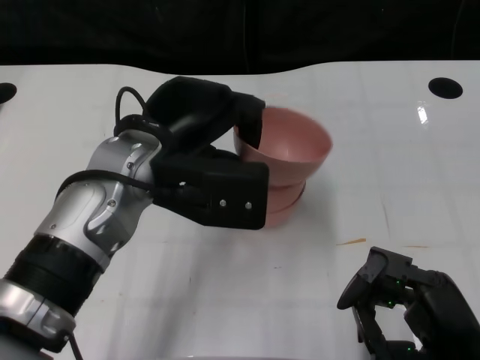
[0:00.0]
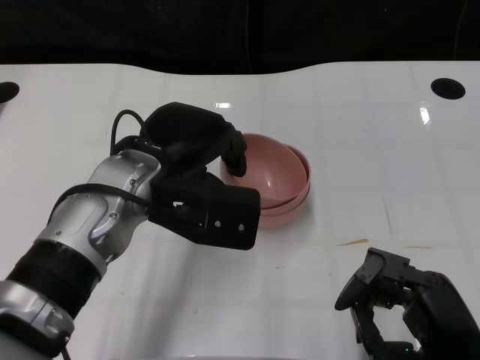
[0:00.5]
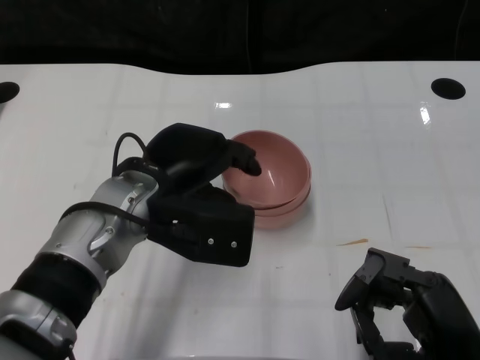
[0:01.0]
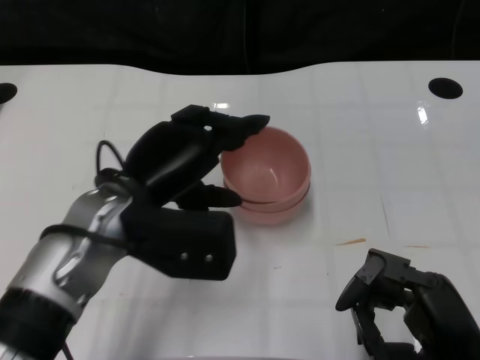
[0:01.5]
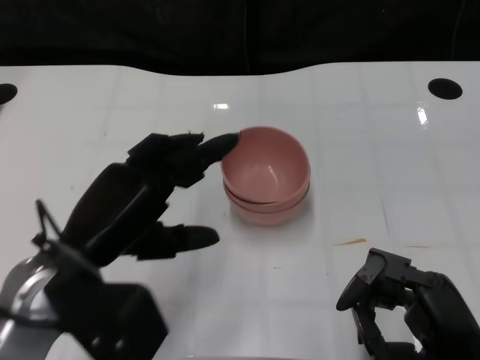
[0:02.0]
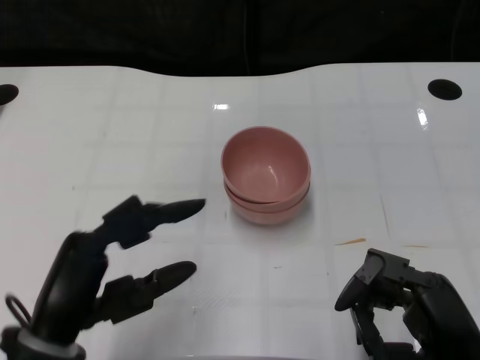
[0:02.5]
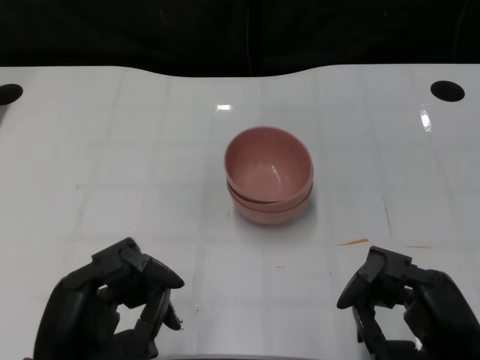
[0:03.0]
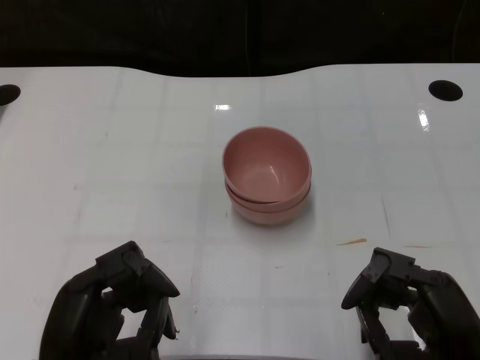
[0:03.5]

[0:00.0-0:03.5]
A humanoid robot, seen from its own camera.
Task of the whole recording: Pick up the bowl on one side of the table and place it on top of the middle bowl, then pick up the bowl on the other side of the table and place it on top of the middle bowls.
0:00.0 to 0:02.0: The left hand moves backward, to the left and downward, about 10 cm.
0:02.0 to 0:03.5: The left hand goes roughly 10 cm backward and downward.

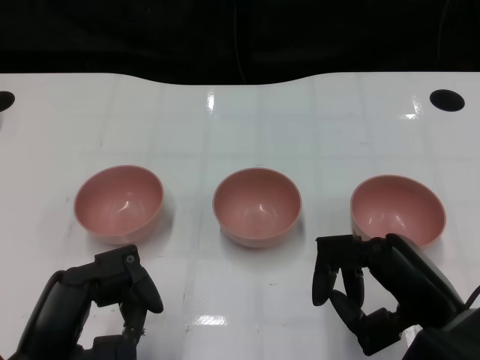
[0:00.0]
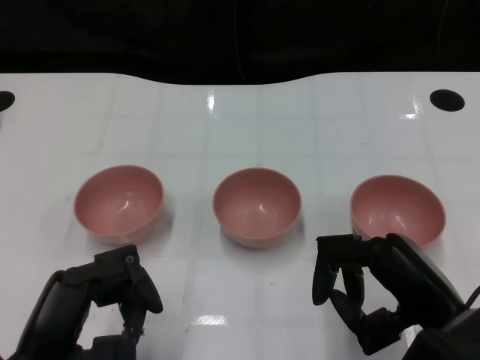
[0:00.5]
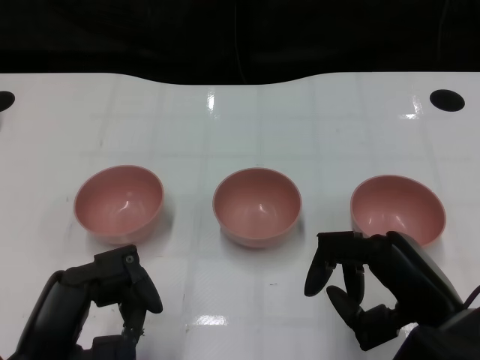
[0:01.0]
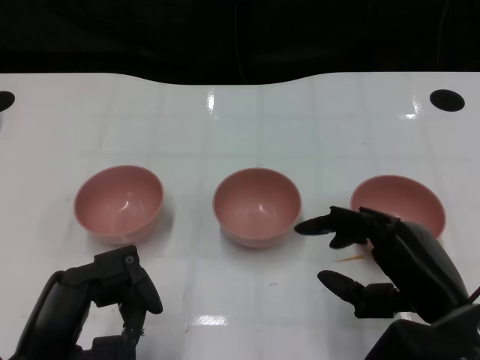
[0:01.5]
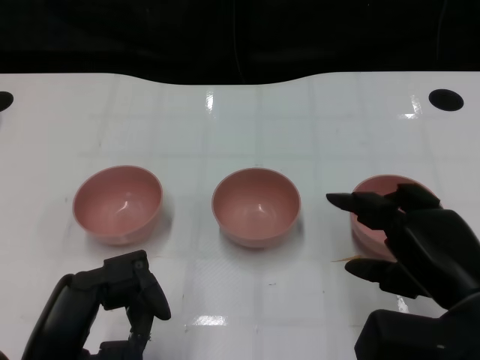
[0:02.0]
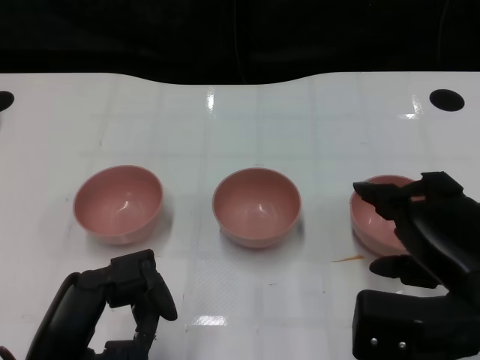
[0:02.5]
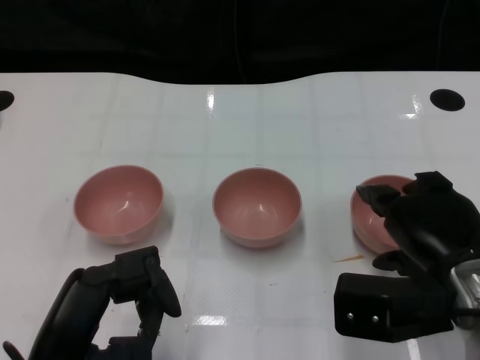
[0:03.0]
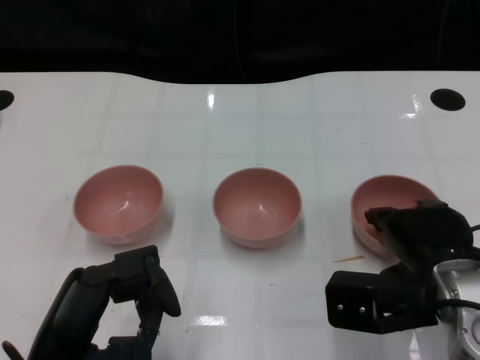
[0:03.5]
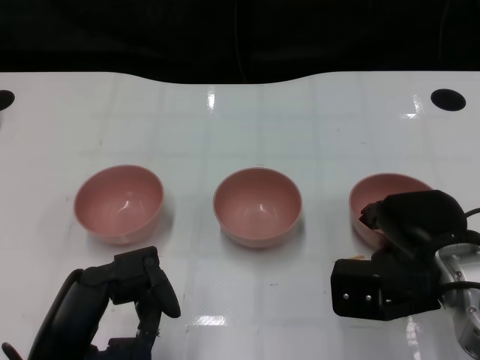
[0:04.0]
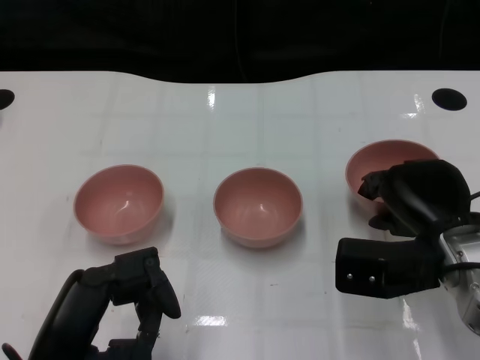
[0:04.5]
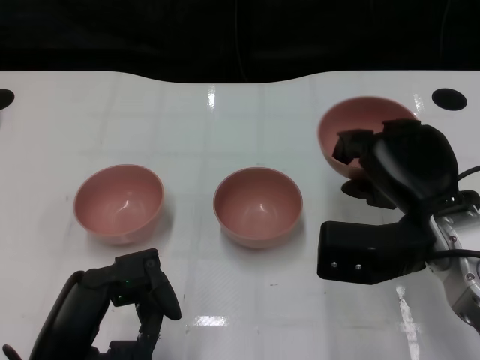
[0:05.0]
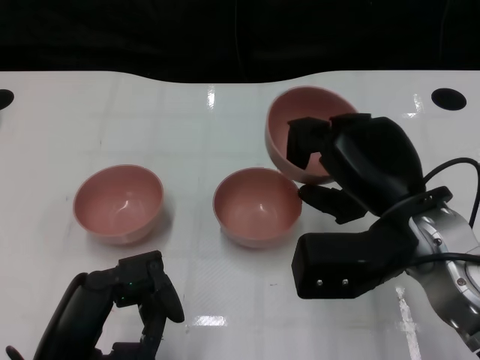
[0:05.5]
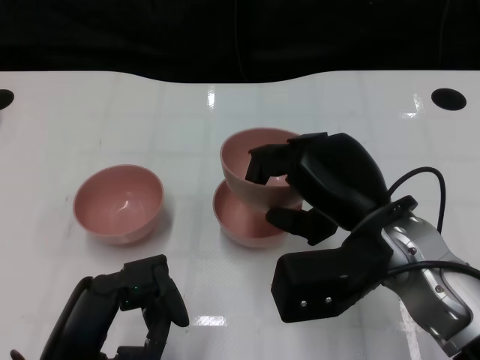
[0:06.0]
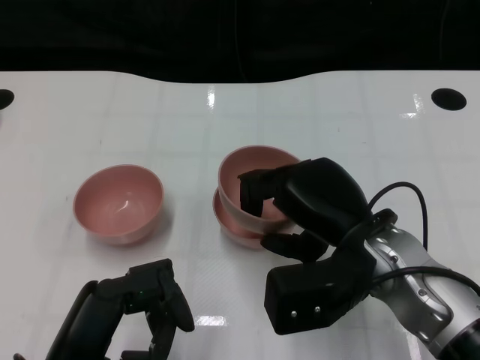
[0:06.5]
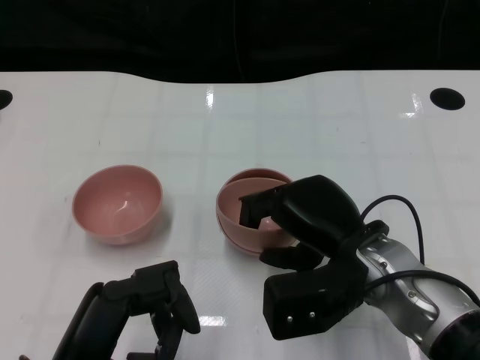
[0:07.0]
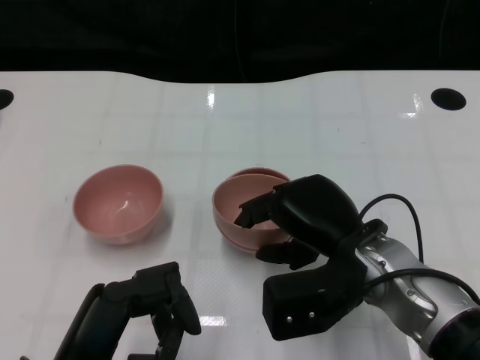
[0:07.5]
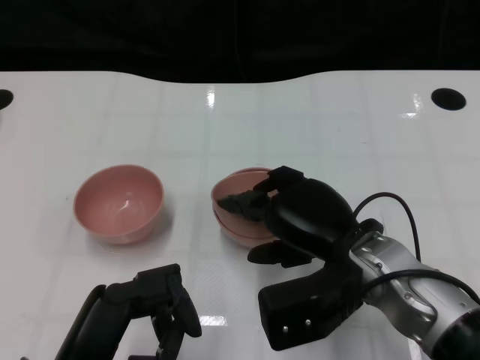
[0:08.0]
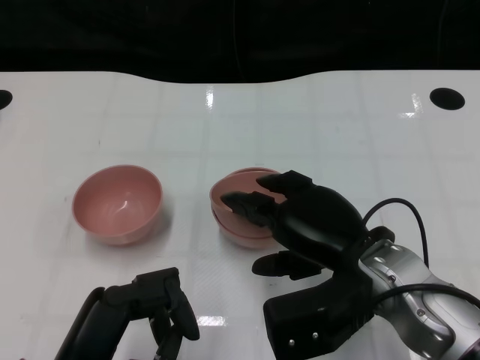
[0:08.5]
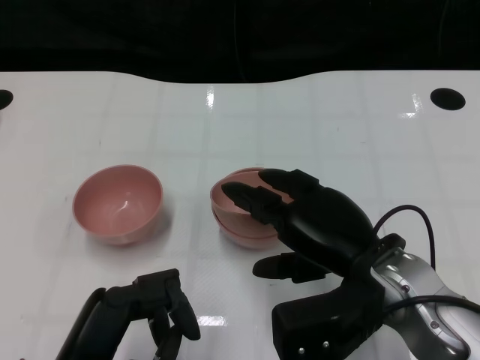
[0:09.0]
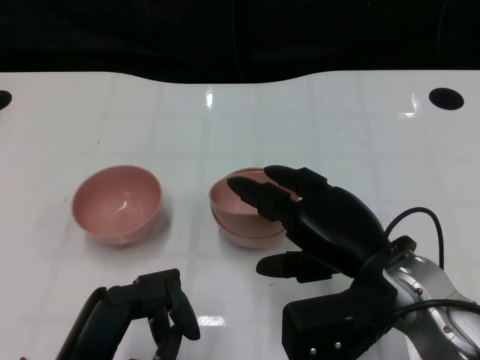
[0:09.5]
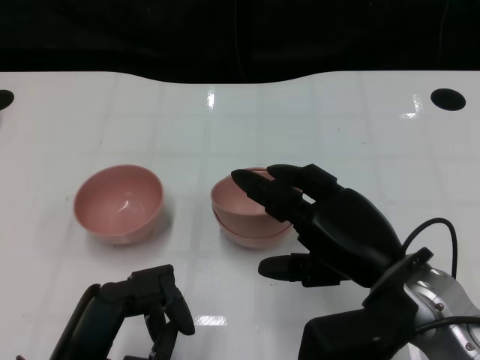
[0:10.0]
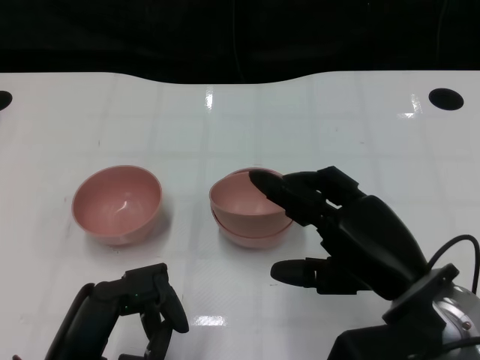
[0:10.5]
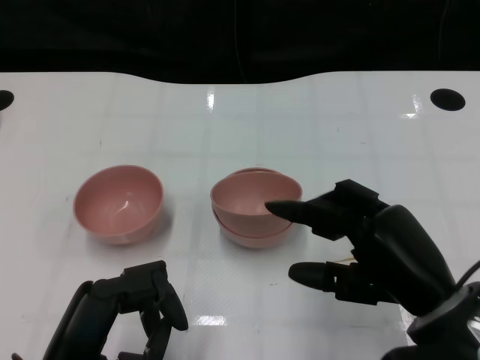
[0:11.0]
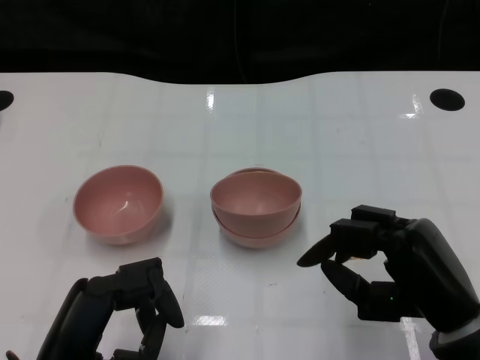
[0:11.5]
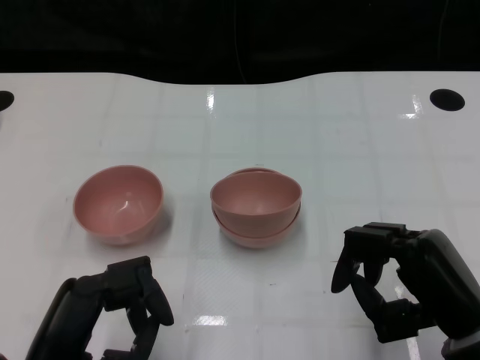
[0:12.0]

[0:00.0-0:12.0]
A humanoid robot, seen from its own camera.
Task of the whole recording: Pick up the bowl on one side of the table and place it on top of the middle bowl, then pick up the bowl on the other side of the table and place it on top of the middle bowls.
Step, 0:01.0 to 0:04.0: Grasp the bowl on the right with the right gripper.
Step, 0:04.5 to 0:10.0: Place the bowl on the right onto the bowl in the middle with right gripper.
0:02.0 to 0:04.0: The right hand shifts about 5 cm forward.
0:04.0 to 0:06.0: The right hand moves to the left and upward, approximately 10 cm.
0:08.0 to 0:10.0: The right hand shifts by approximately 5 cm.
0:10.0 to 0:12.0: The right hand travels to the right by roughly 5 cm.

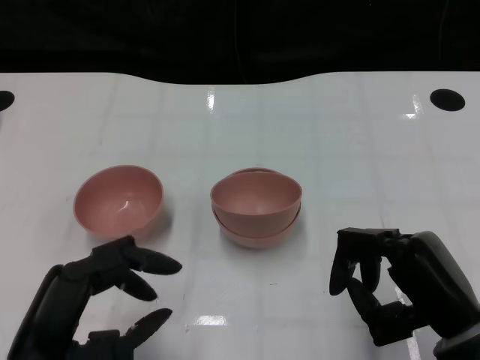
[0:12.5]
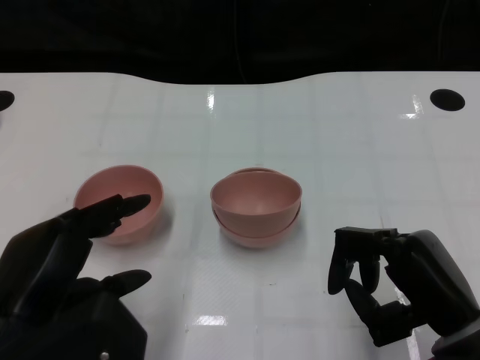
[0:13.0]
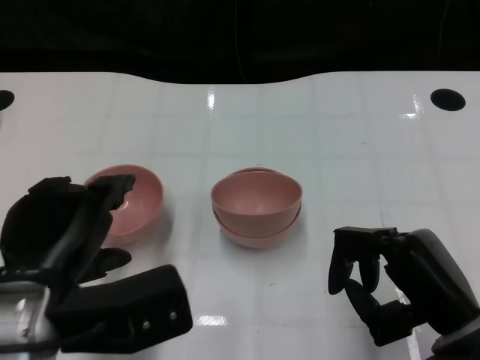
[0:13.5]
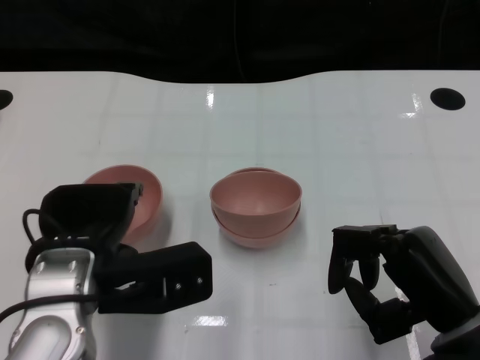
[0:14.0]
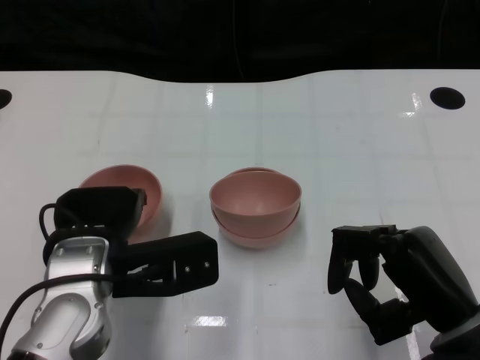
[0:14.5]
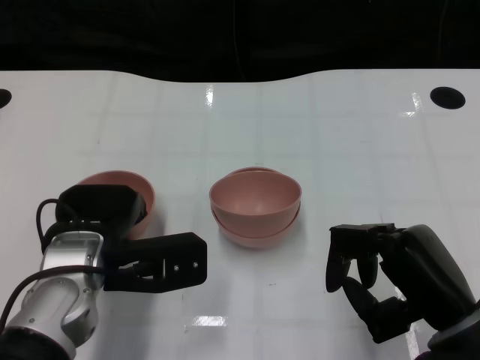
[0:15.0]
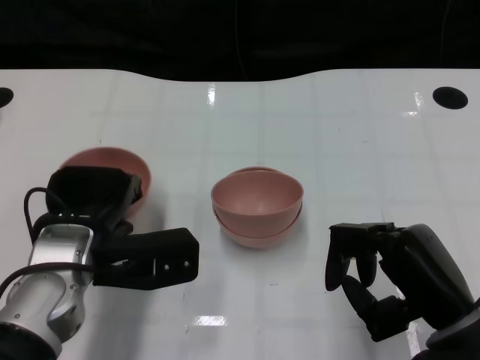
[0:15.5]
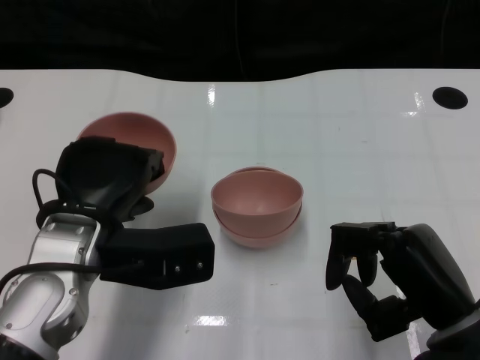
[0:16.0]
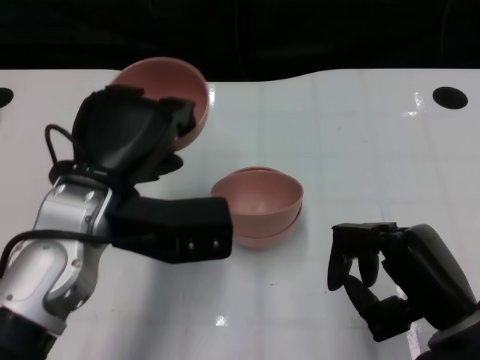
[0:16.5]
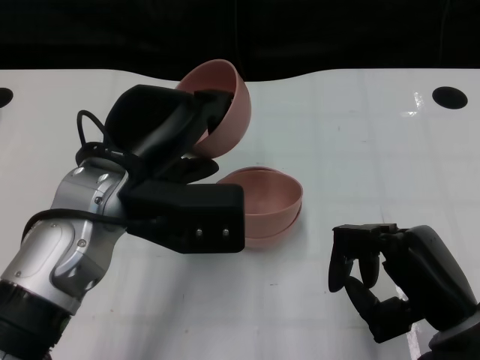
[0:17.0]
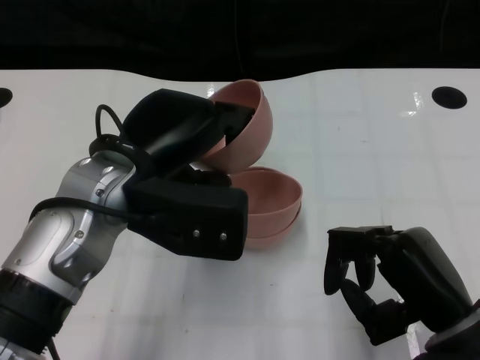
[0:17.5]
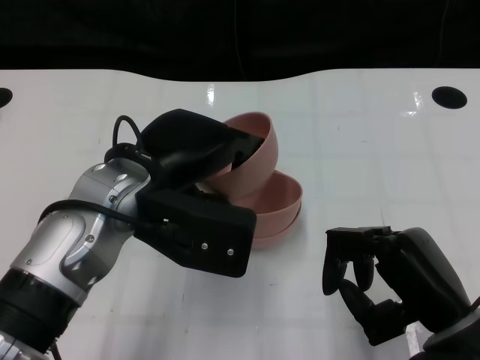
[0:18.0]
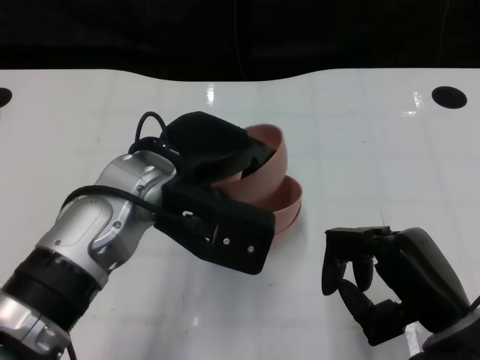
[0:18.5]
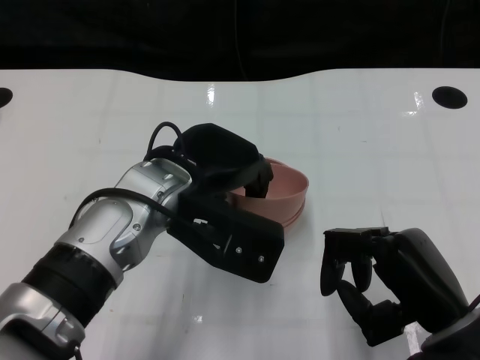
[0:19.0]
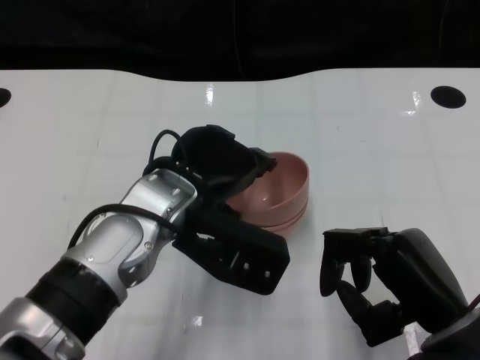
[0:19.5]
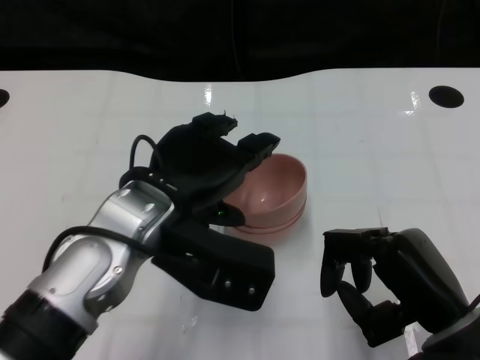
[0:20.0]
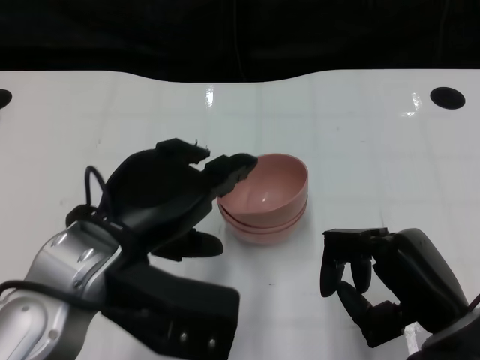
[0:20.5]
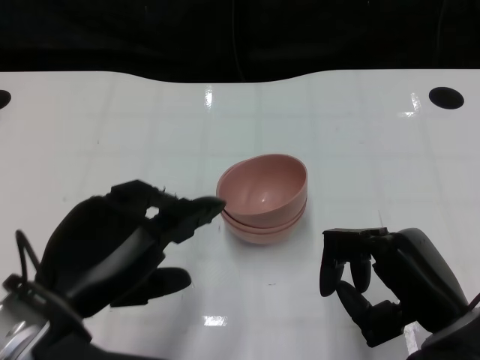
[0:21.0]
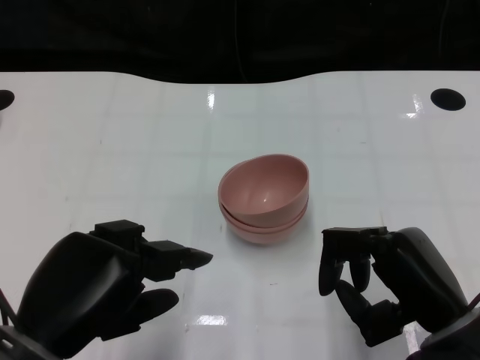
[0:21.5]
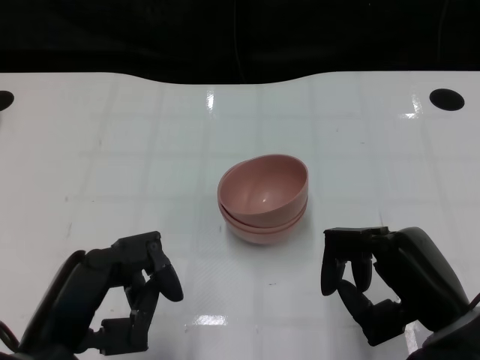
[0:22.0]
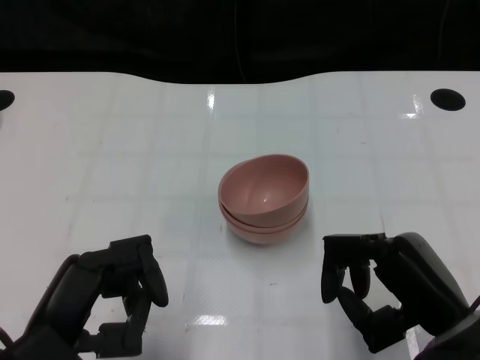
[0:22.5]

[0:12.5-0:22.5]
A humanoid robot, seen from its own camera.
Task of the whole recording: Pick up the bowl on one side of the table and place it on top of the middle bowl, then pick up the bowl on the other side of the table and place it on top of the middle bowls.
Step, 0:12.5 to 0:15.0: Grasp the bowl on the left with the left gripper.
Step, 0:15.5 to 0:20.5: Place the bowl on the left onto the bowl in the middle with left gripper.
0:12.5 to 0:14.5: The left hand is displaced forward and to the right by approximately 15 cm.
0:14.5 to 0:16.5: The left hand is displaced upward by roughly 5 cm.
0:16.5 to 0:18.5: The left hand moves approximately 5 cm.
0:18.5 to 0:20.5: The left hand is displaced backward by some 5 cm.
0:20.5 to 0:22.5: The left hand shifts some 10 cm backward, downward and to the left.
